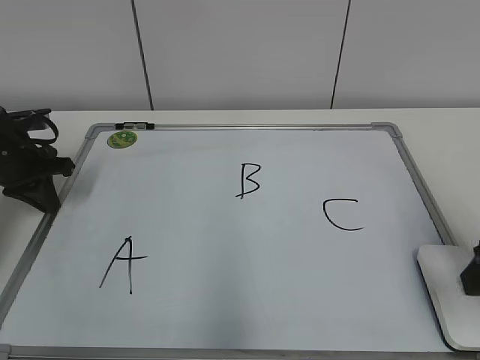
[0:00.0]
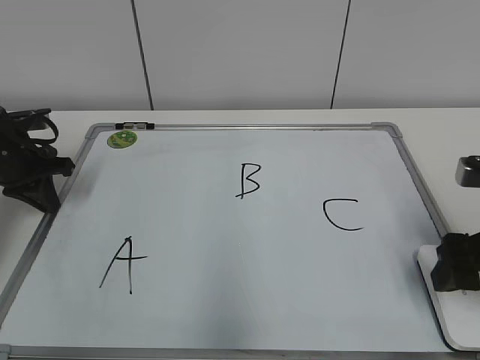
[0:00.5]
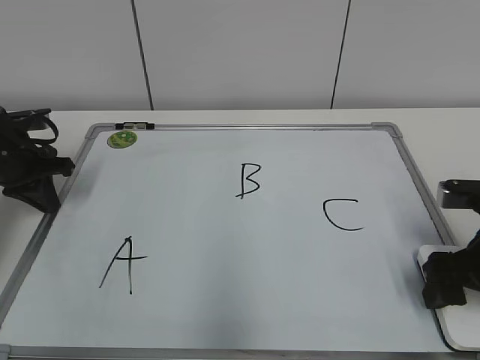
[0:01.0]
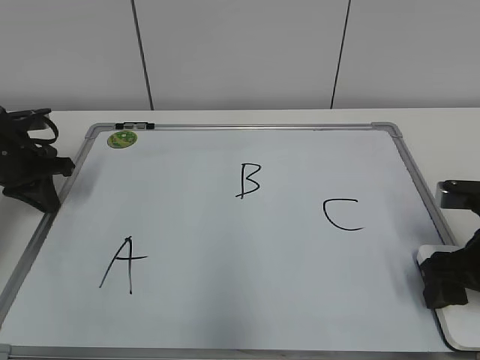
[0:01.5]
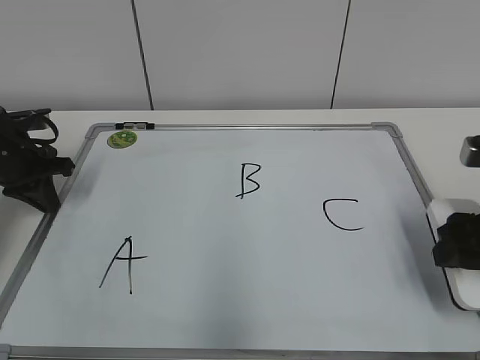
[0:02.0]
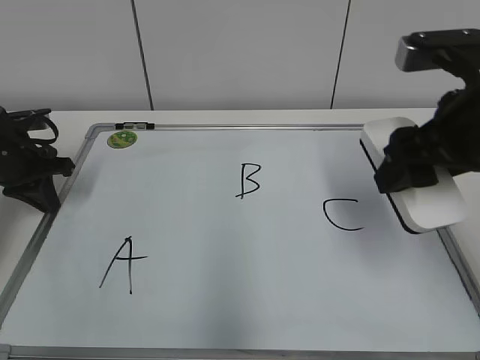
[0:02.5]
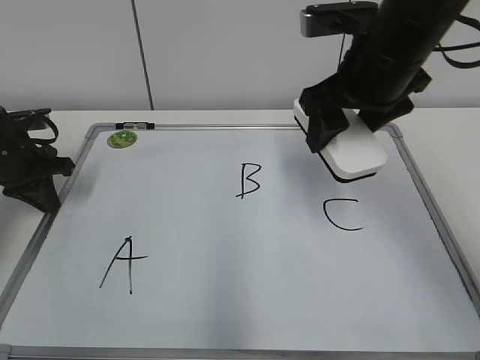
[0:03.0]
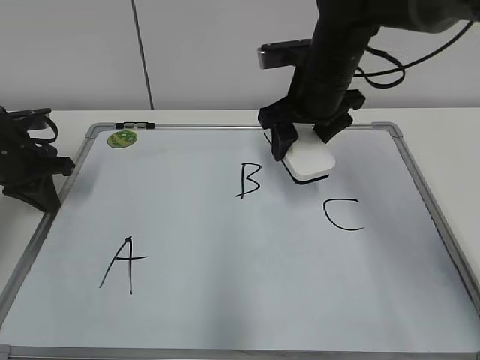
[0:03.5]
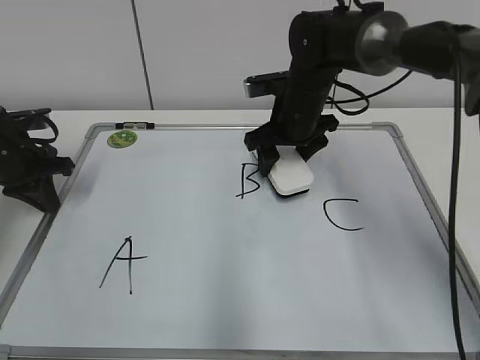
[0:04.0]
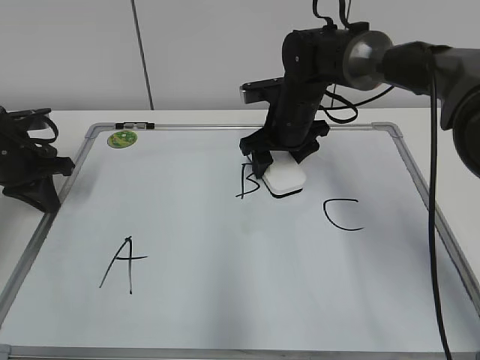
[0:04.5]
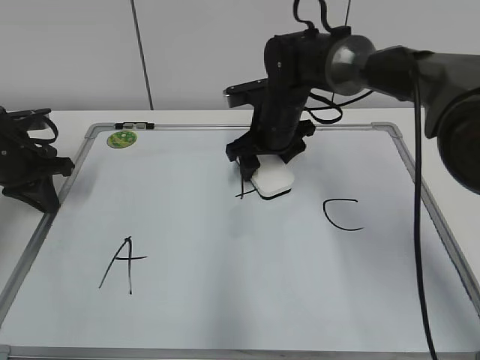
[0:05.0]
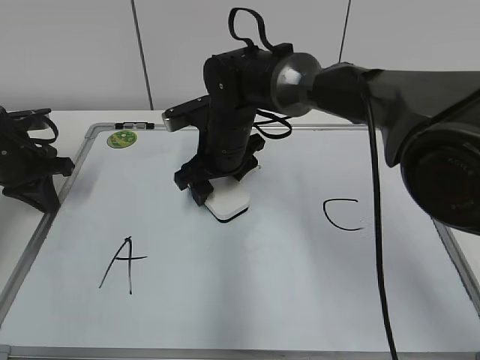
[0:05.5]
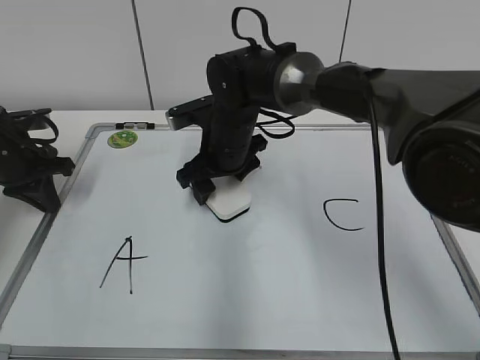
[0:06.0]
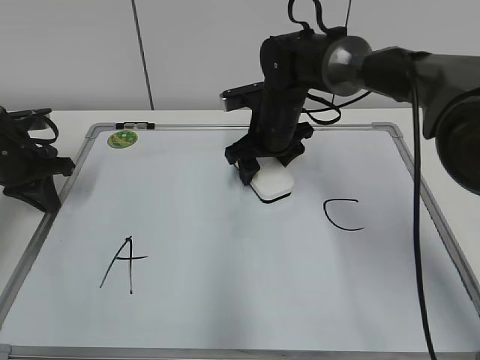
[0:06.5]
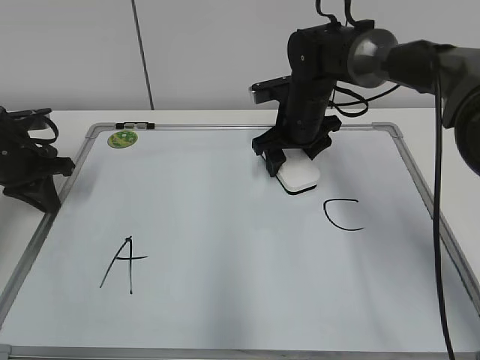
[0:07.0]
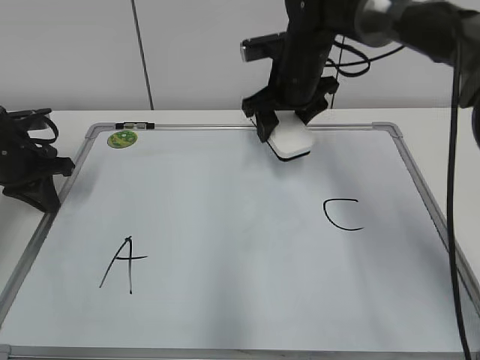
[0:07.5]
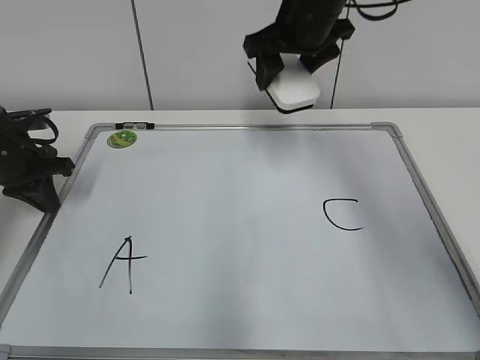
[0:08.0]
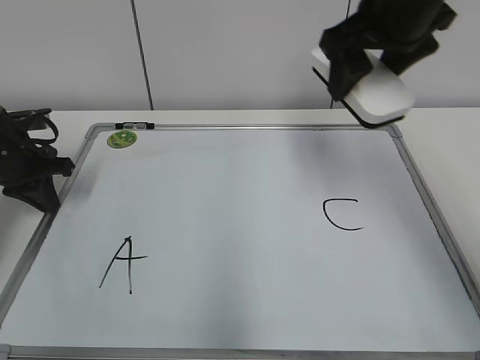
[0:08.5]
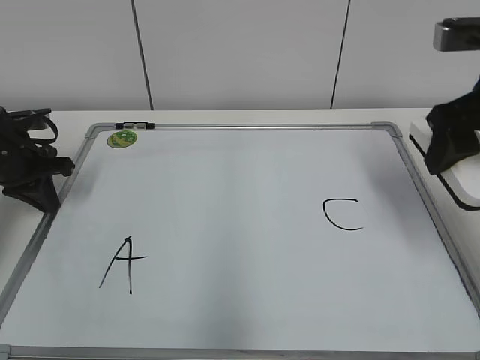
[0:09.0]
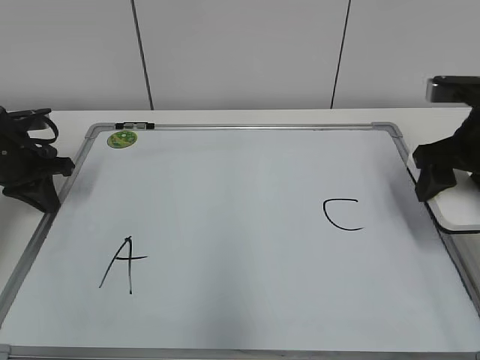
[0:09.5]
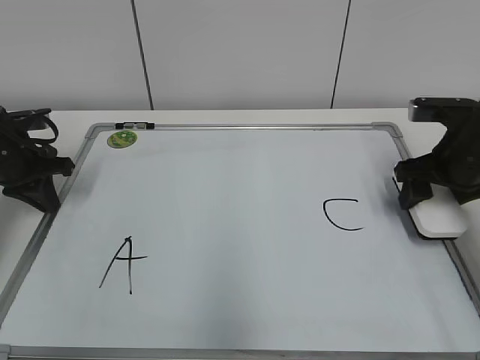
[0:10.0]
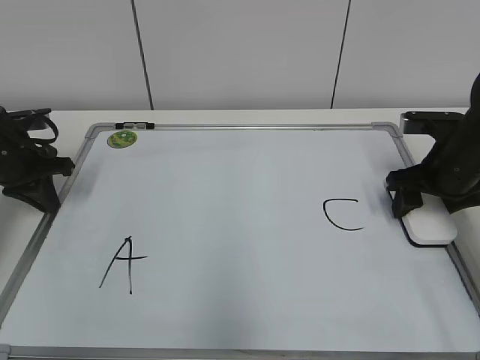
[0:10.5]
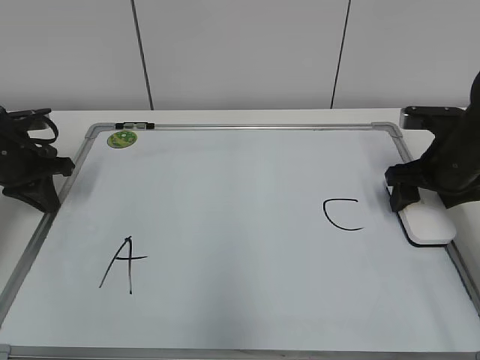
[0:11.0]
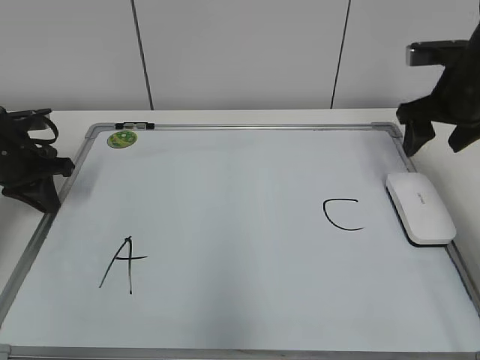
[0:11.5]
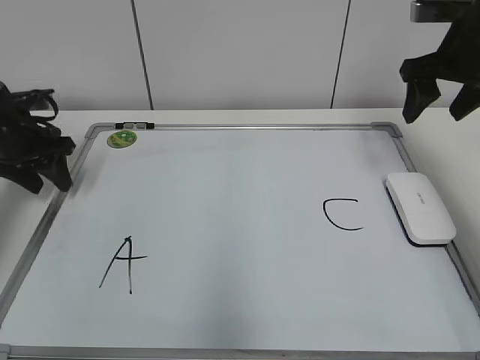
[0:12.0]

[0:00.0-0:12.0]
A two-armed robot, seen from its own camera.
Task of the whole recording: pick up the eraser on the blackboard and erase the letter "B".
Step, 0:00.0 to 0:01.5: Grab the eraser with your right hand.
Step, 0:02.0 to 0:07.0: Erase the letter B with your right hand.
Step, 0:07.5 to 0:10.5: Put down the eraser with your right hand.
0:00.0 to 0:02.0: The right gripper opens, then closes again.
0:02.0 to 0:04.0: The right gripper heads forward and to the left, covering about 30 cm.
0:04.0 to 0:06.0: The right gripper heads to the left, covering about 10 cm.
0:06.0 to 0:08.0: The right gripper shifts approximately 20 cm upward and to the right.
0:08.0 to 0:10.0: The right gripper is displaced to the right, downward and backward by roughly 25 cm.
0:10.0 to 0:12.0: The left gripper opens up, while the right gripper heads upward and forward, covering roughly 10 cm, and opens its fingers.

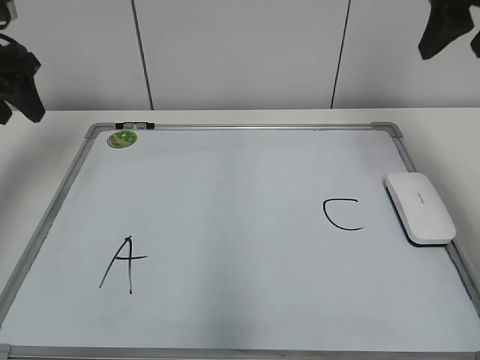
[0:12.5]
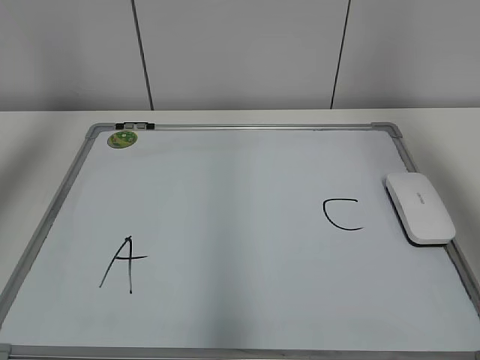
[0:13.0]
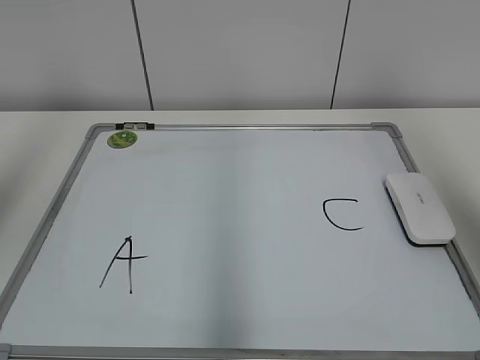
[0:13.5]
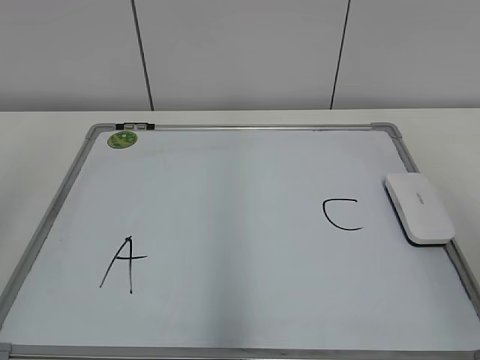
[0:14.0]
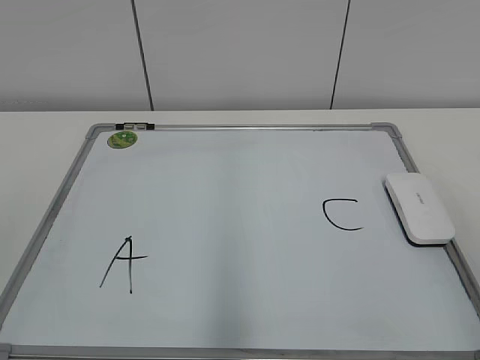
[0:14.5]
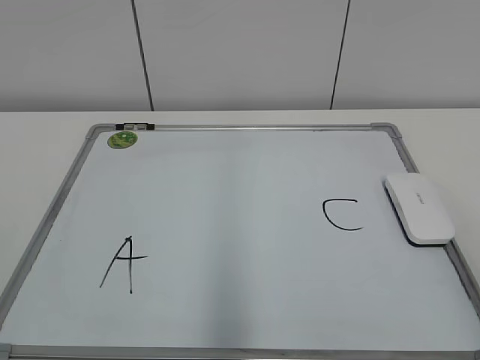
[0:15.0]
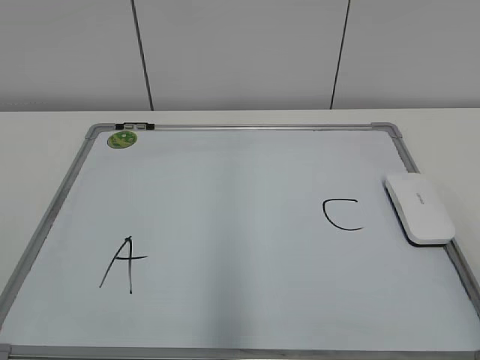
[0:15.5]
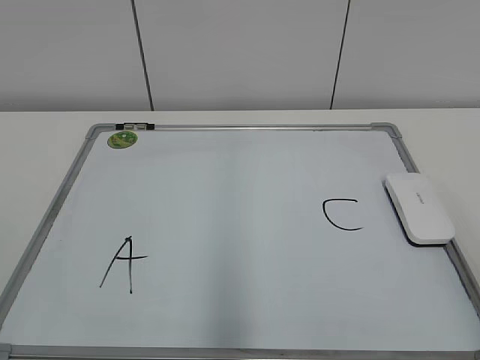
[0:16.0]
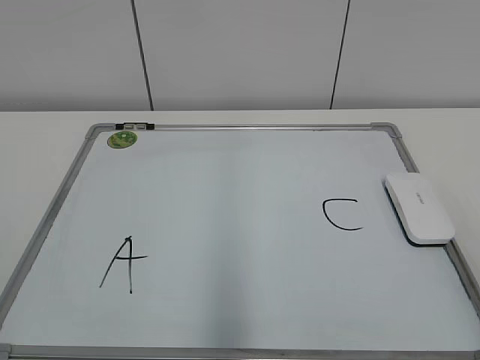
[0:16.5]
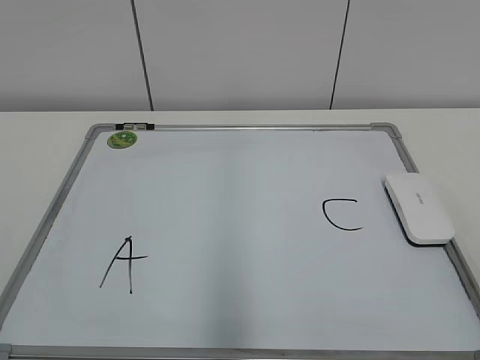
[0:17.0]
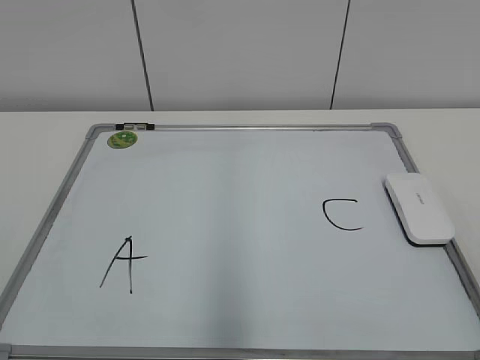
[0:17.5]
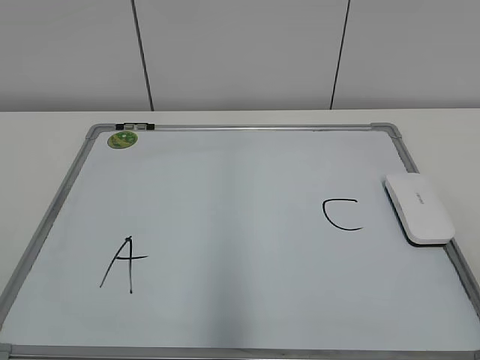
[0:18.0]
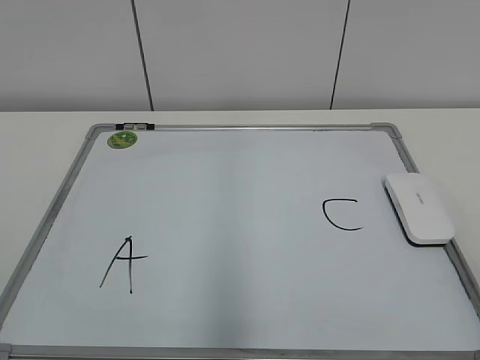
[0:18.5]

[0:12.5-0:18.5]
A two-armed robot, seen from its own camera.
Task of the whole recording: pick up the eraser on the blackboard and erase the letter "B".
0:12.5 to 0:14.5: The two grippers go approximately 35 cm backward.
